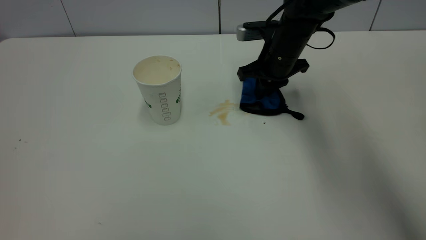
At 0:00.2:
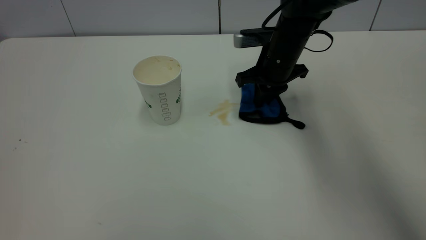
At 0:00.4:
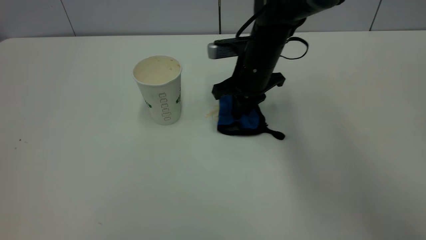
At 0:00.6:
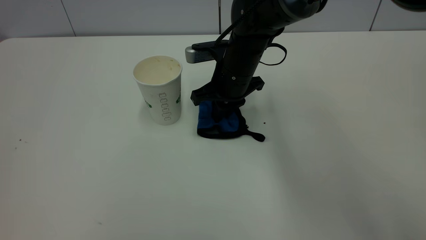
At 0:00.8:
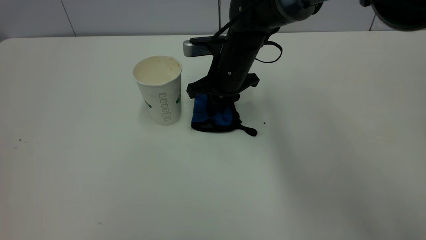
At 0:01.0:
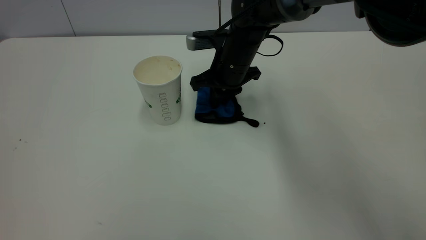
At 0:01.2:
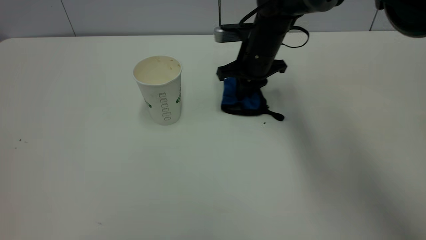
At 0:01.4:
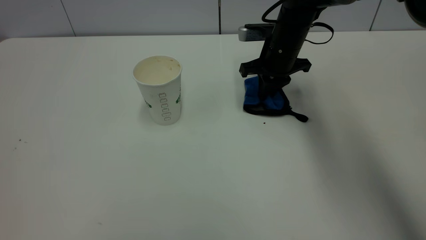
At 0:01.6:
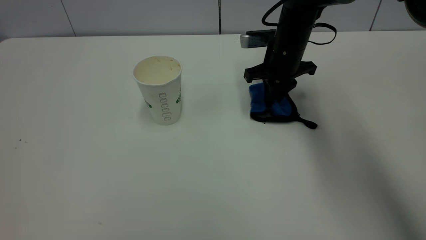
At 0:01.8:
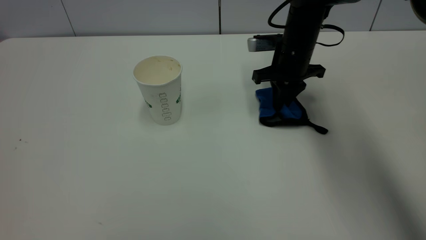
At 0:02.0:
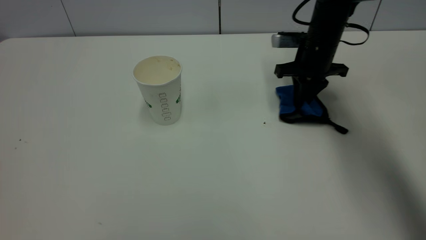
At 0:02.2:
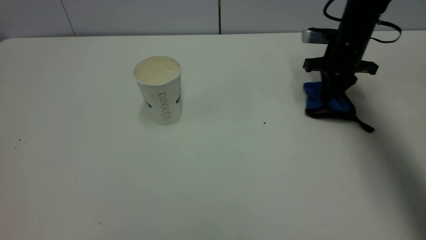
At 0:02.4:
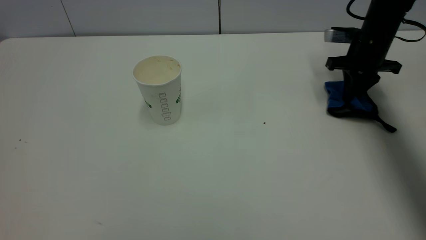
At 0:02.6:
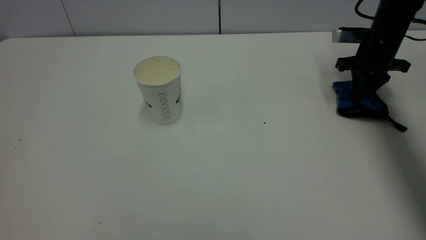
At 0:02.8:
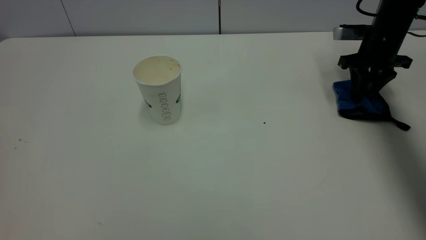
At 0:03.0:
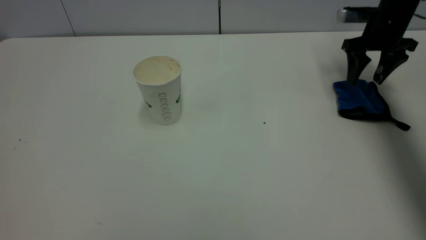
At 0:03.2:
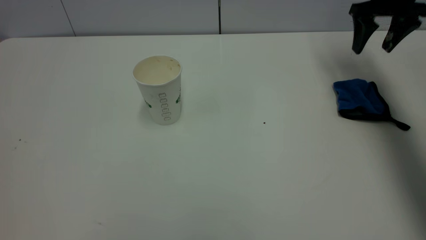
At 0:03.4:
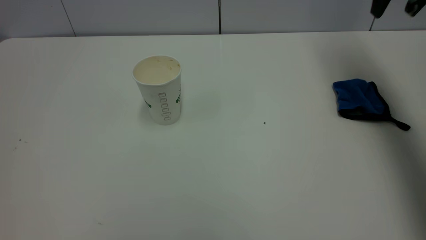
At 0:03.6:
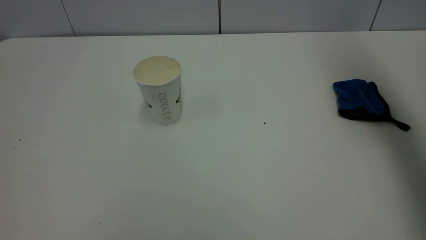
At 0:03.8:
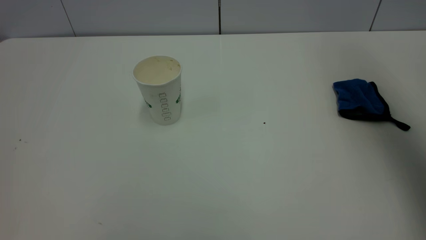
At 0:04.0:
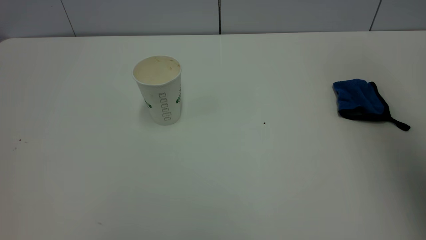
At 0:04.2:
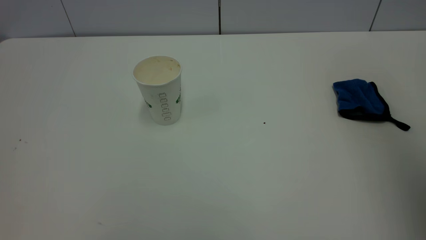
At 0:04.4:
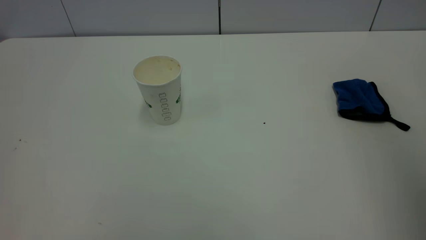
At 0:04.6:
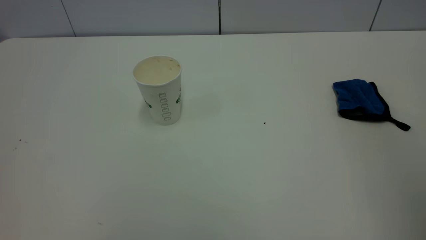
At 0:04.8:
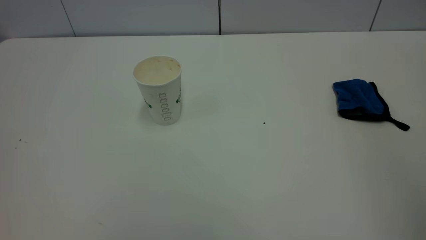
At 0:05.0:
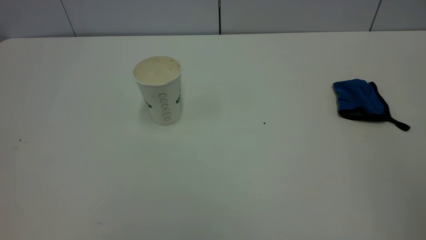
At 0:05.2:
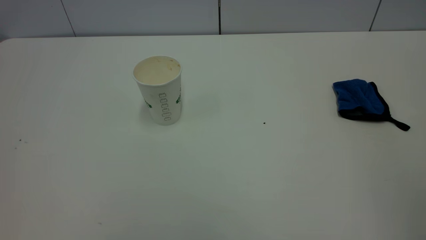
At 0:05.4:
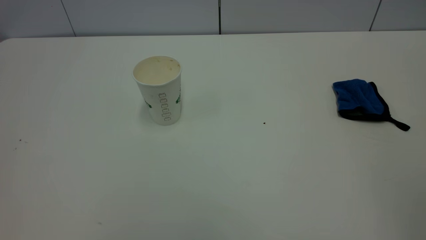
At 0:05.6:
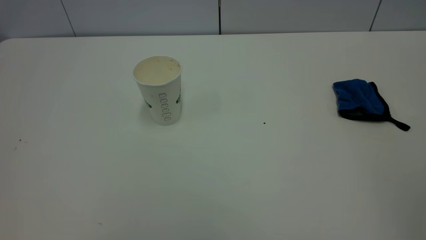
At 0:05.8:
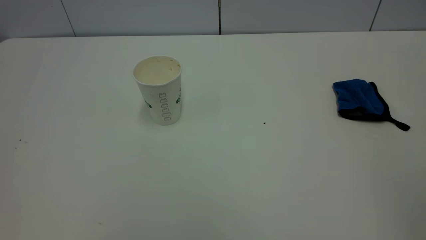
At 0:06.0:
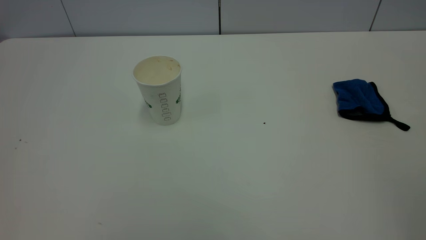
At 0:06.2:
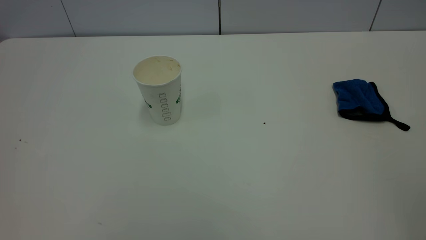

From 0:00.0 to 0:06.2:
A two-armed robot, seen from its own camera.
Task of the whole recording: the left gripper pick up the fallen cup and place it upright, the right gripper grasp the blue rag and wipe the tea stain on the table, the right gripper put the blue rag back in its original position.
Step, from 0:00.0 to 0:03.0: Wipe the stains off the table with a rag.
From 0:00.0 to 0:01.6: The right gripper moves roughly 10 cm to the left and comes back.
From 0:01.6 to 0:03.2: The right gripper heads to the right and upward, covering approximately 20 cm, and opens.
From 0:03.2 to 0:04.6: The right gripper is displaced backward by roughly 40 cm.
